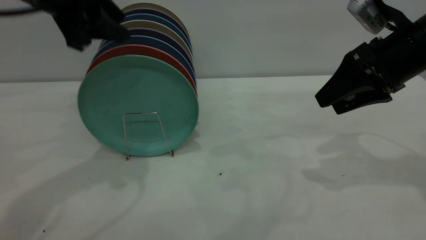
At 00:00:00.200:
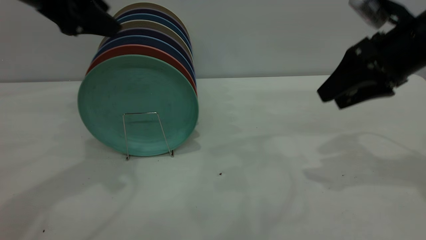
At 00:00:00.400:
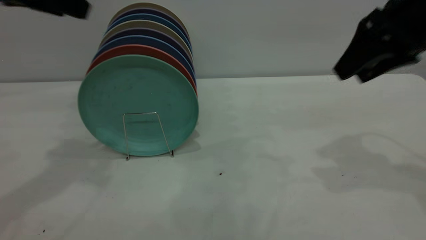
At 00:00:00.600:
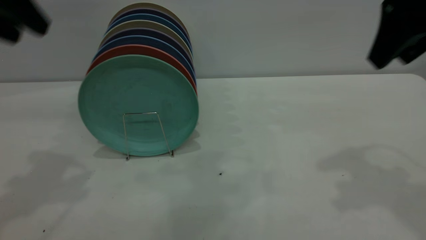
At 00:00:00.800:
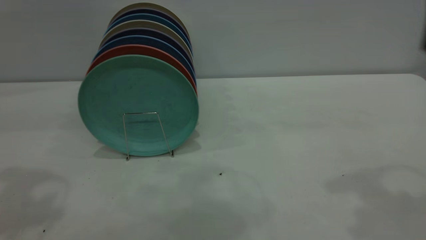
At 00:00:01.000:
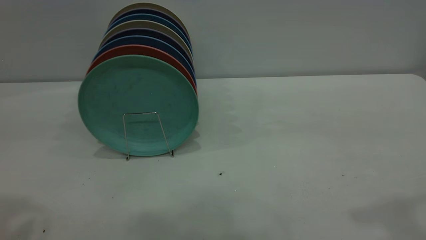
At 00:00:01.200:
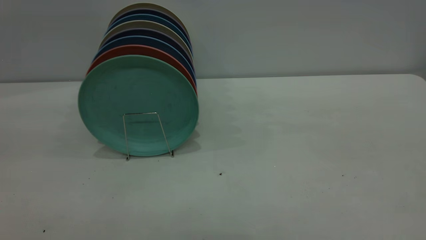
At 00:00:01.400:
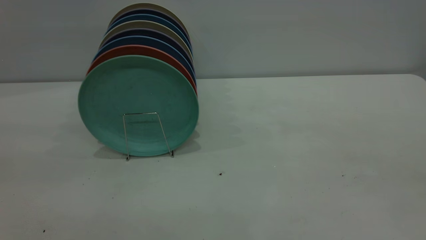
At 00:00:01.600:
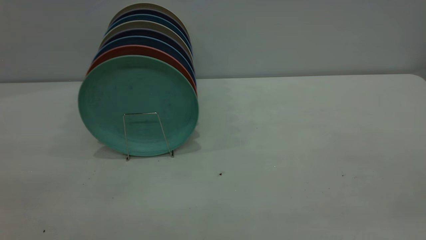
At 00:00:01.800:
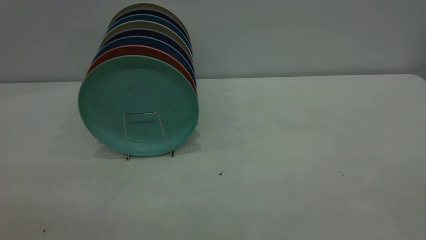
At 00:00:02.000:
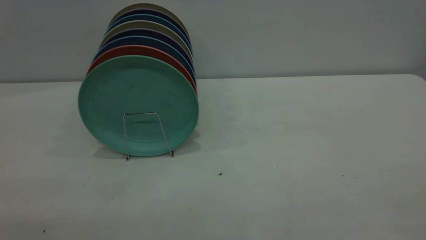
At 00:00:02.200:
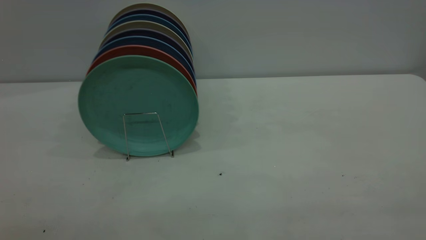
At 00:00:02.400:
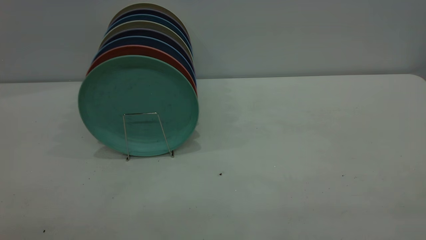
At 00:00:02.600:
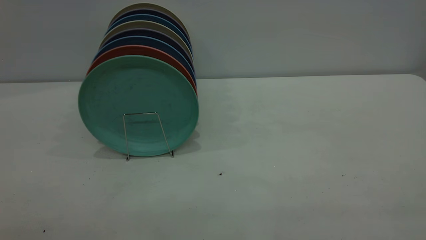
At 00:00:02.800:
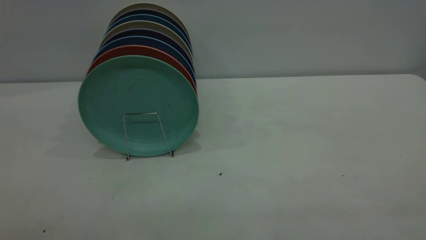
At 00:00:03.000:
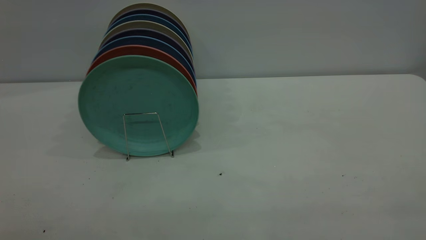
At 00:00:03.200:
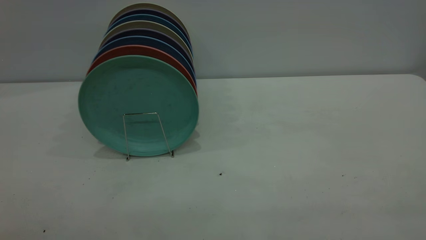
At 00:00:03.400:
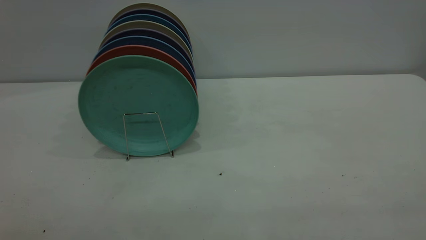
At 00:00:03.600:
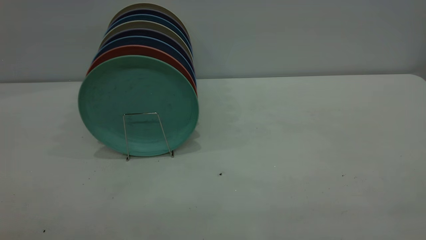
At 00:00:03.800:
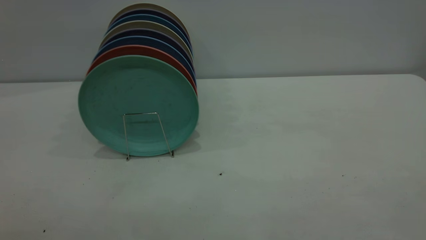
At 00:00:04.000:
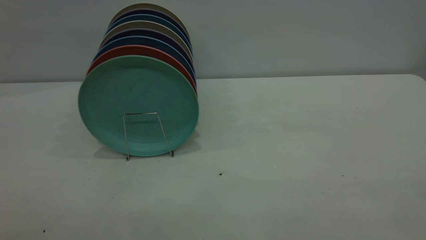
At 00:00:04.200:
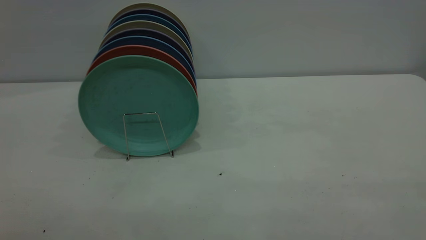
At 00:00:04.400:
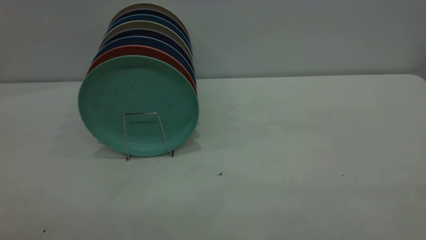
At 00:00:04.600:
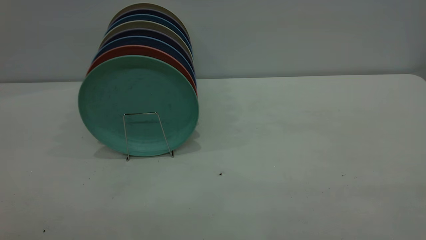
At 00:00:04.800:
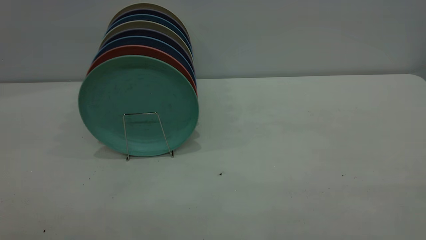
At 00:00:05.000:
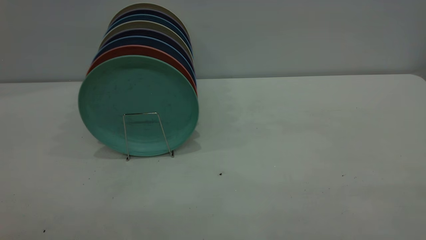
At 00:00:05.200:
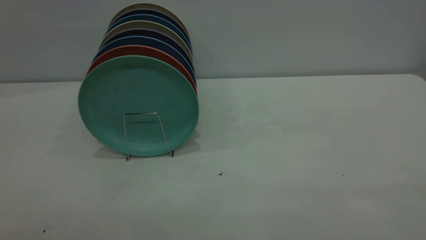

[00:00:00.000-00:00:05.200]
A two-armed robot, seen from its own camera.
Task of the whole recording: the right gripper grasp the green plate, the right gripper pass the green plate to the left gripper, and the left gripper place the green plate on the plate rack.
00:00:00.000 to 00:00:01.800: The left gripper is displaced backward by roughly 35 cm, while the right gripper goes about 40 cm backward and upward.
